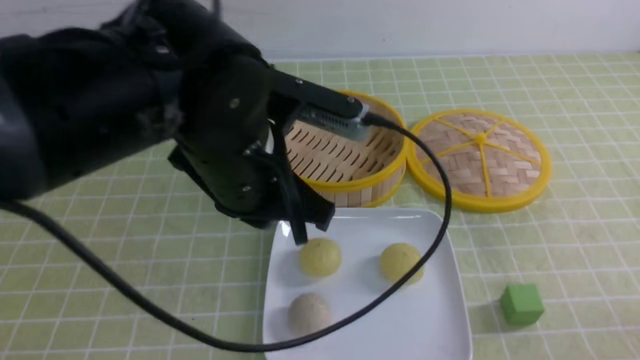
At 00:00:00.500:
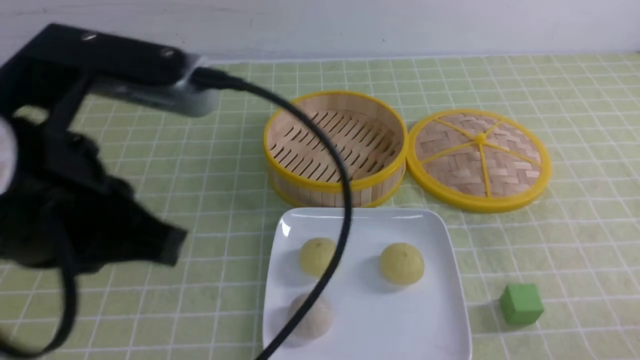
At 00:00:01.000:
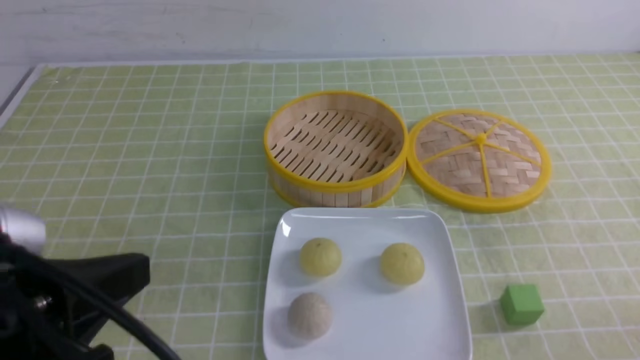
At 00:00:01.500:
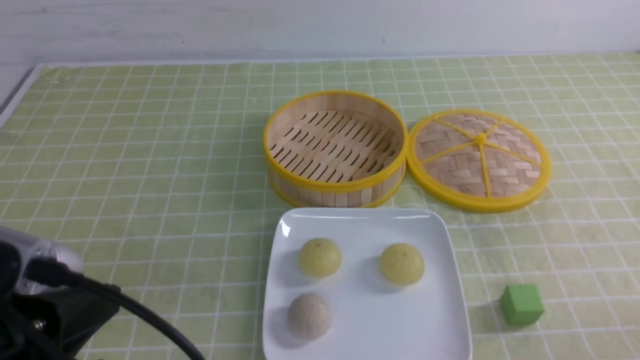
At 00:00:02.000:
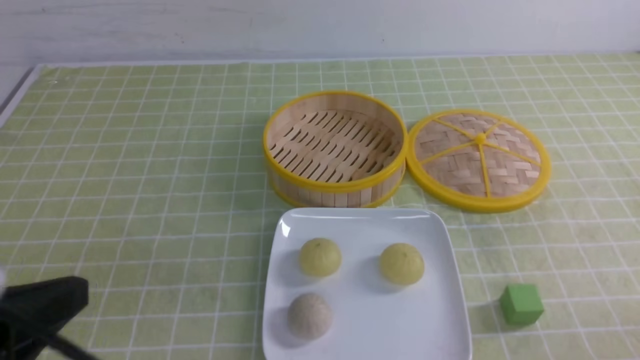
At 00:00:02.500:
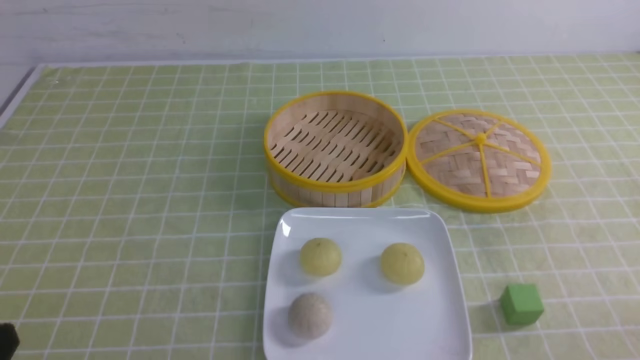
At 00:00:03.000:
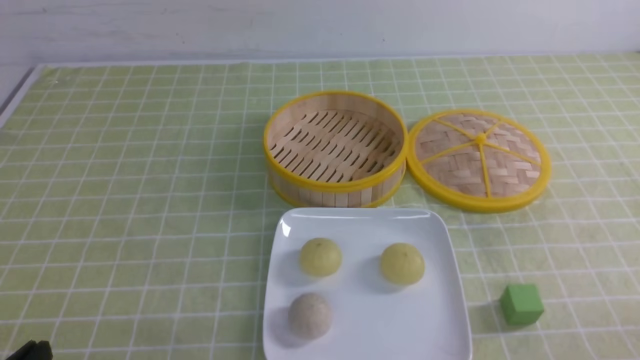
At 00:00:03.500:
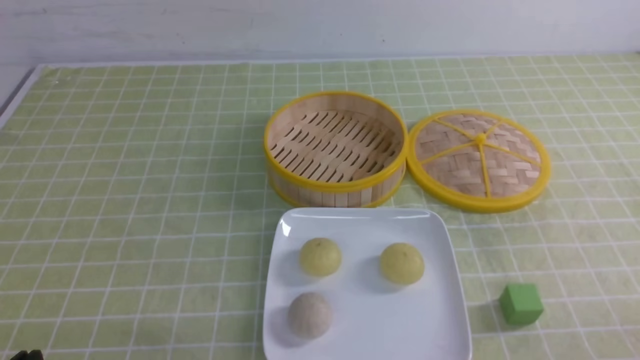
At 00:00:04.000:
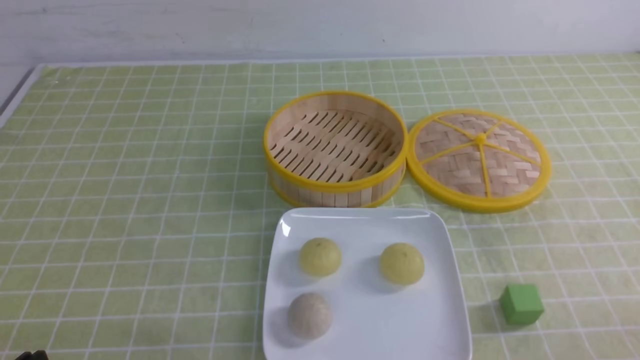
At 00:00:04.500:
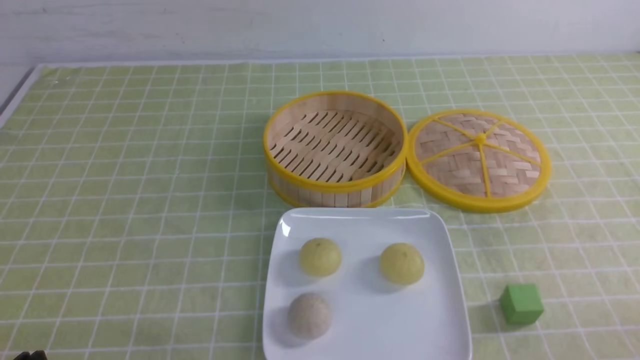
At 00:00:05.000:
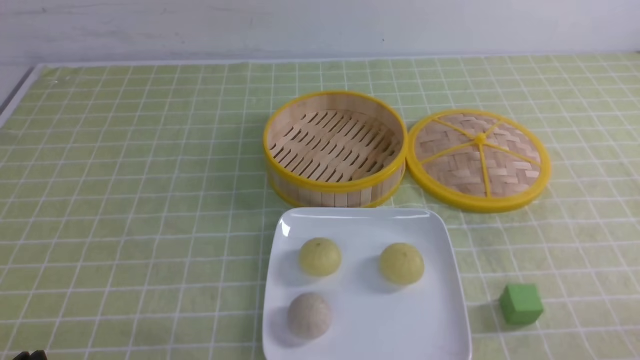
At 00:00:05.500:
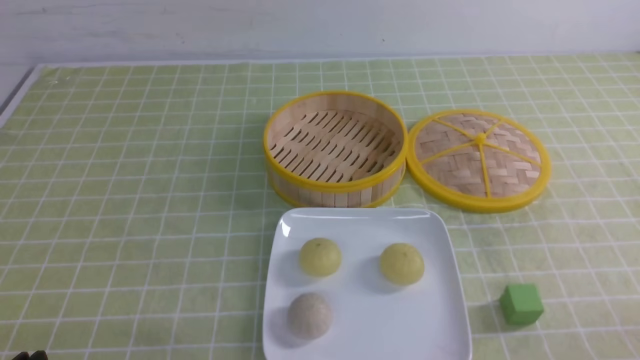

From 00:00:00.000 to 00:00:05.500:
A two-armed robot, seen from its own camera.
From 00:00:00.000 to 00:00:02.000: The left gripper travels backward and to the left by about 25 cm.
From 00:00:02.000 to 00:00:03.500: The left gripper is displaced downward by approximately 15 cm.
From 00:00:03.500 to 00:00:05.500: Both grippers stay about where they are.
